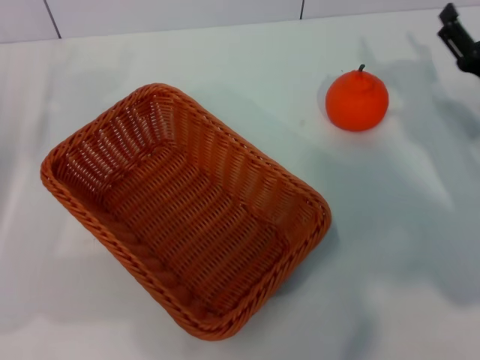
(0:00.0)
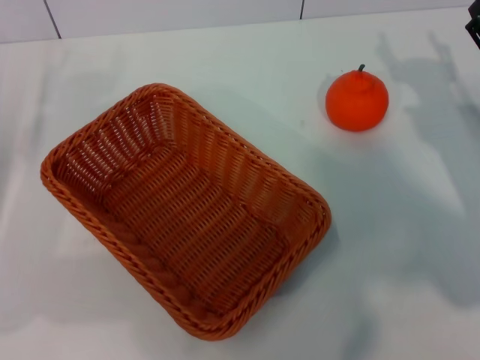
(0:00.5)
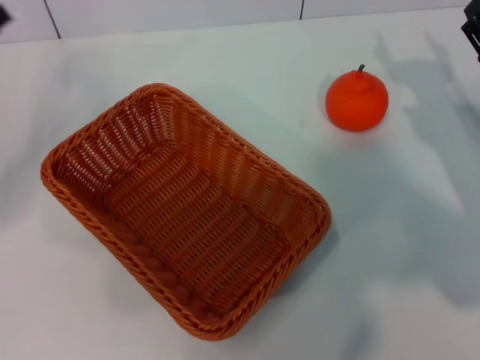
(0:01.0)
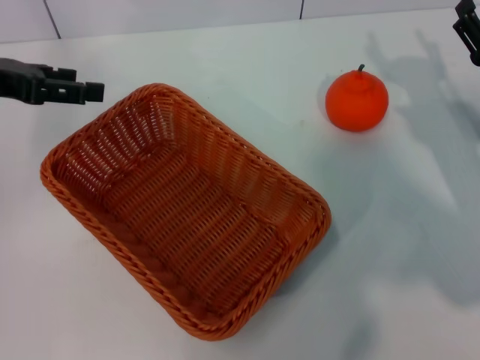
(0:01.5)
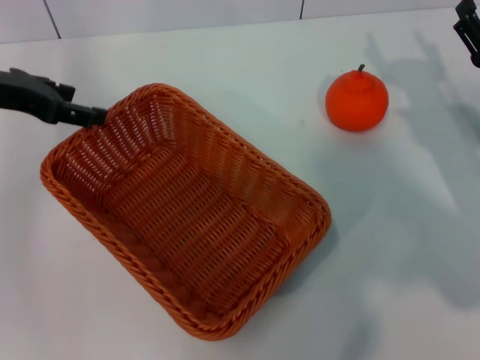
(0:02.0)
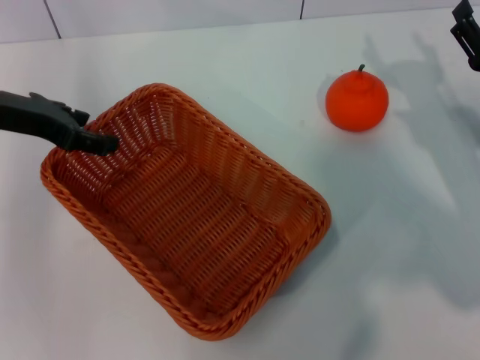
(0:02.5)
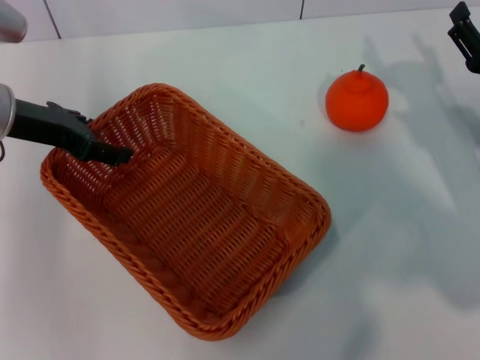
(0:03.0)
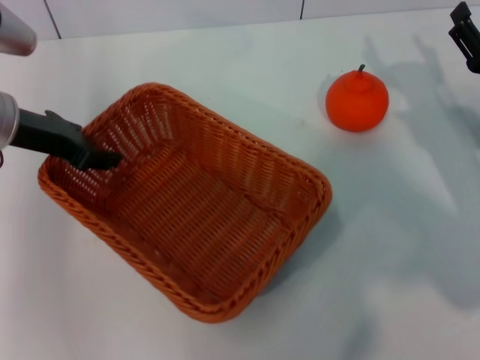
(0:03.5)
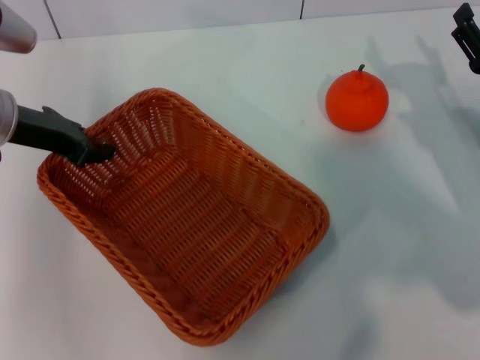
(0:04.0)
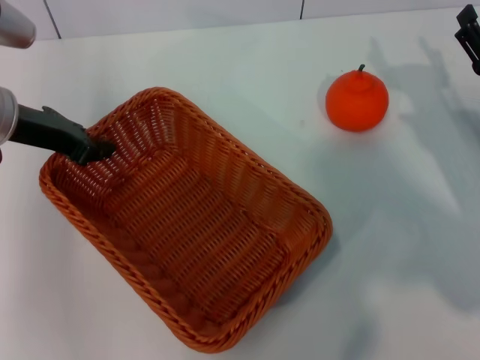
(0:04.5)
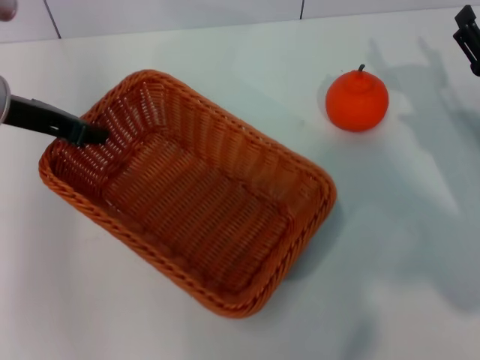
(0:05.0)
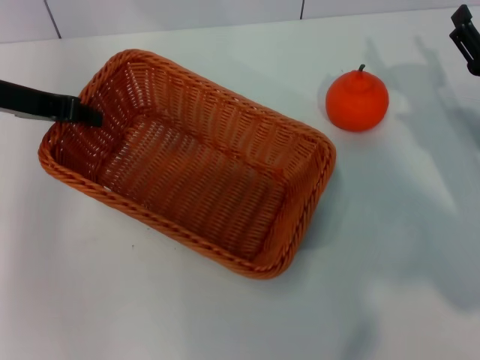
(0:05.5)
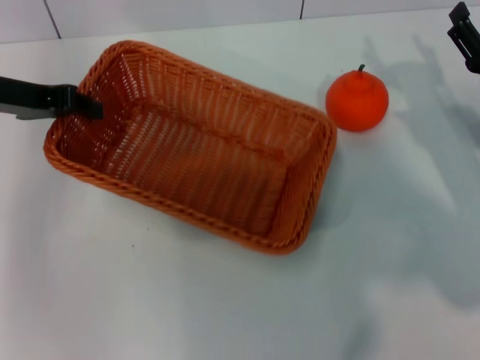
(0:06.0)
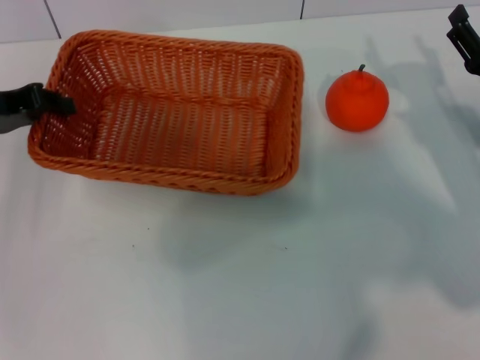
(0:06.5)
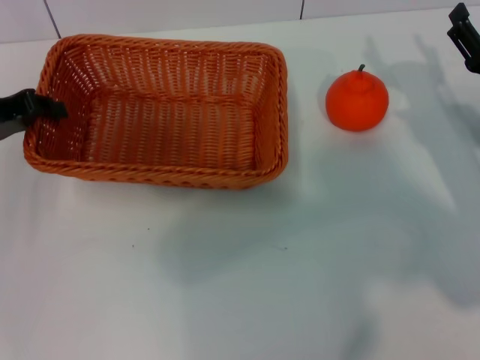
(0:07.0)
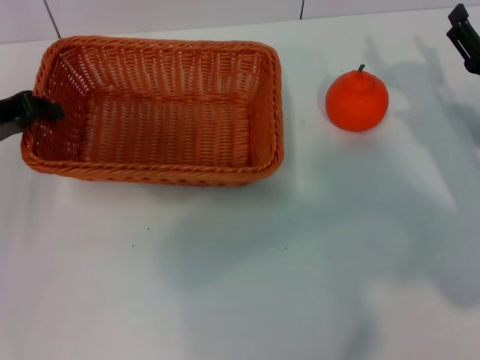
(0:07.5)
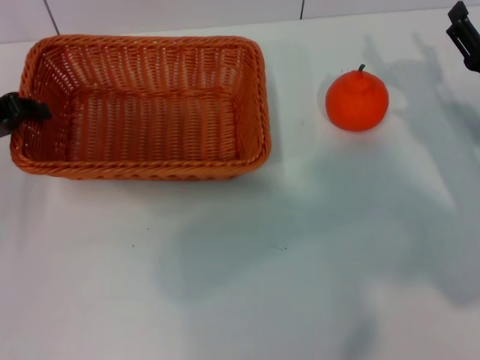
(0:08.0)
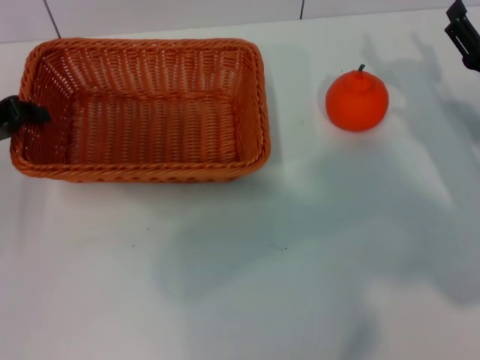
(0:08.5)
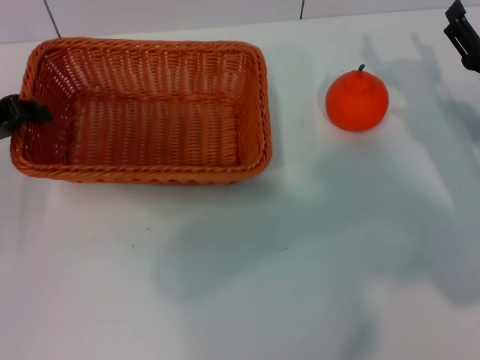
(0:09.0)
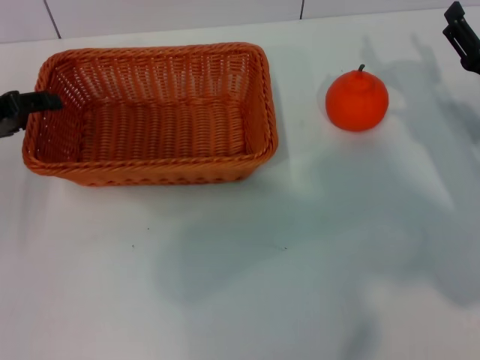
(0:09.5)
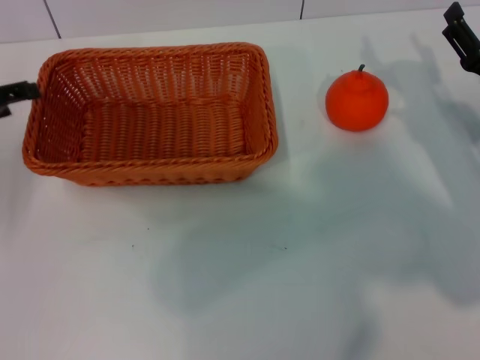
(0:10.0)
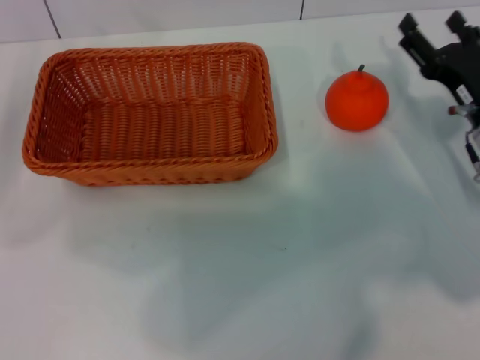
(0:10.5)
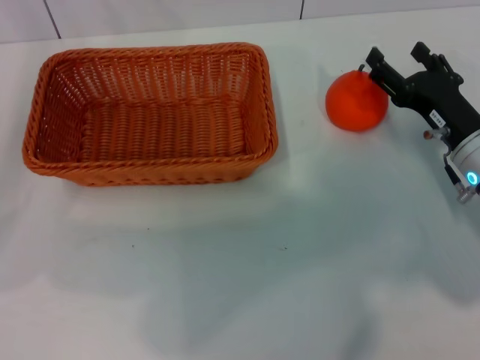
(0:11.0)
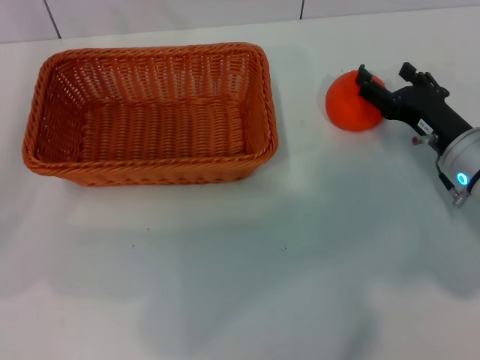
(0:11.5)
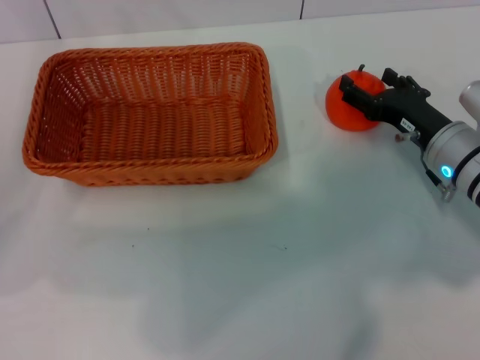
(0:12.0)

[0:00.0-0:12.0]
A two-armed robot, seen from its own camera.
Task of the whole recording: the left gripper pick up the yellow basket and place it horizontally in the middle of the table, the right gripper pick up the orange and place it into the yellow basket.
Step, 0:00.0 to 0:04.5: Pick up the light basket with the left gripper.
Step, 0:05.0 to 0:09.5: Place the light basket in the center of view with the left gripper.
0:00.0 to 0:02.0: The left gripper shifts about 15 cm upward, forward and to the right.
0:02.0 to 0:04.0: The left gripper closes up.
0:06.0 to 0:08.0: The left gripper shifts by roughly 5 cm.
0:08.0 to 0:10.0: The left gripper opens up.
0:10.0 to 0:12.0: The right gripper ends up approximately 5 cm from where it was.

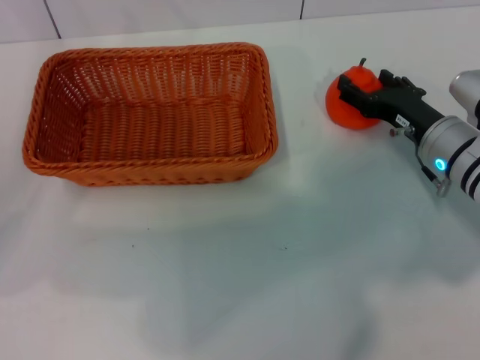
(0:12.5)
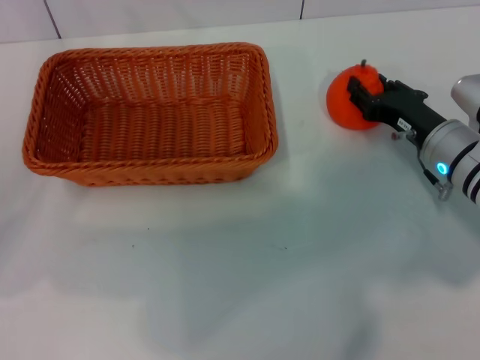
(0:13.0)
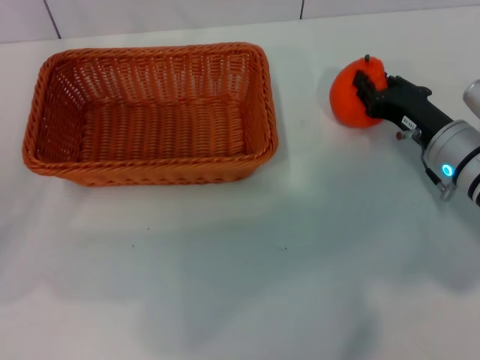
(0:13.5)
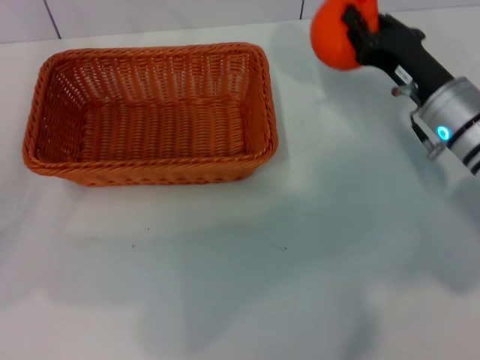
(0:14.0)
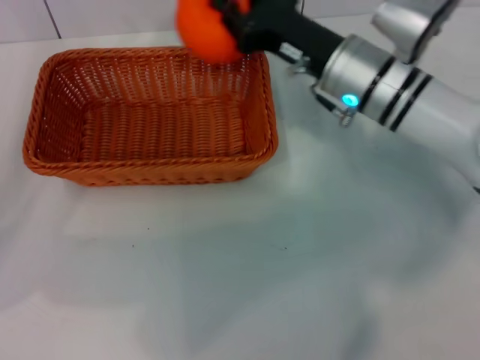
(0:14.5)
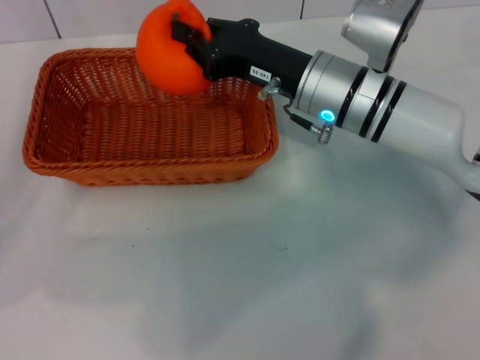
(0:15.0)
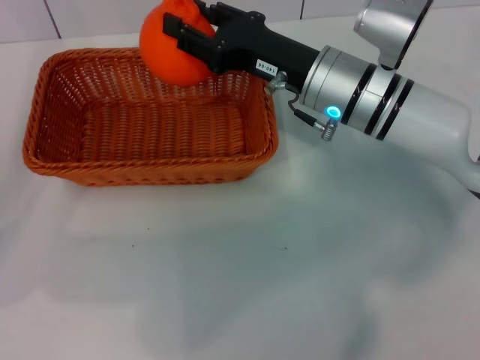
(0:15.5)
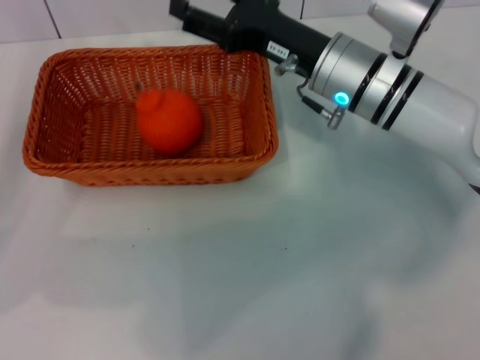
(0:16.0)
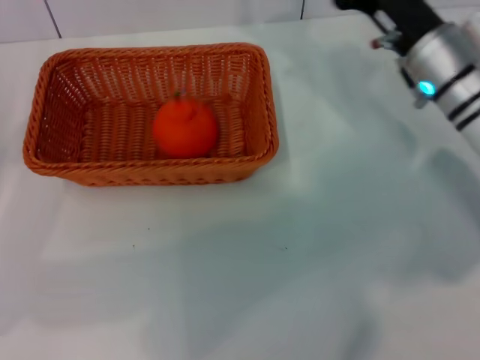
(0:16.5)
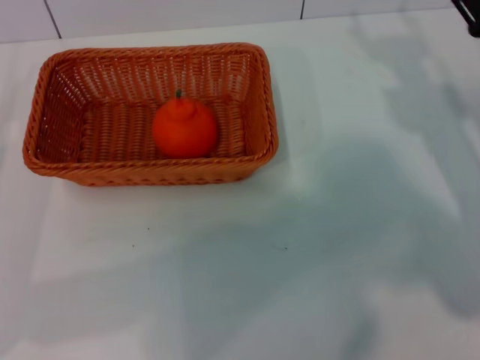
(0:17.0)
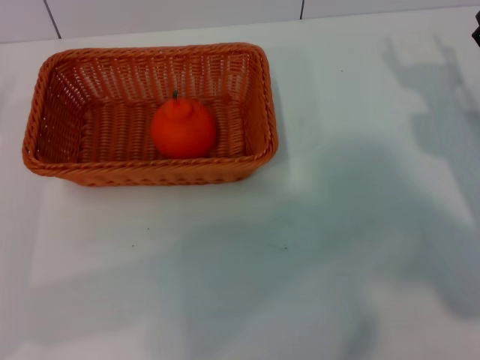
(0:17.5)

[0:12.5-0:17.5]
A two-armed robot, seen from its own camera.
Task of the whole recording: the left gripper pick up the yellow basket and place it horizontally in the middle of the table, the right gripper pick up the orange and place it into the yellow basket.
Step, 0:14.0 to 0:15.5: Place the orange into the light basket with the right gripper.
0:12.5 to 0:15.0: The right gripper shifts about 15 cm to the left and upward, and closes up.
0:15.0 to 0:17.5: The left gripper travels downward by some 5 cm. The right gripper moves to the right, some 20 cm, and opens its fingers.

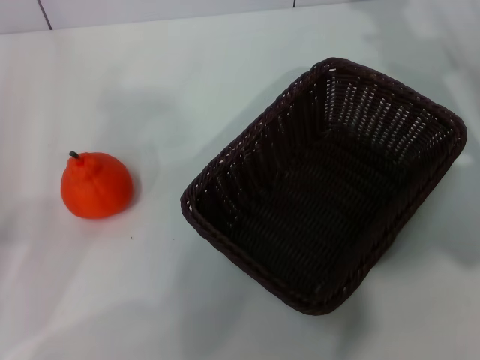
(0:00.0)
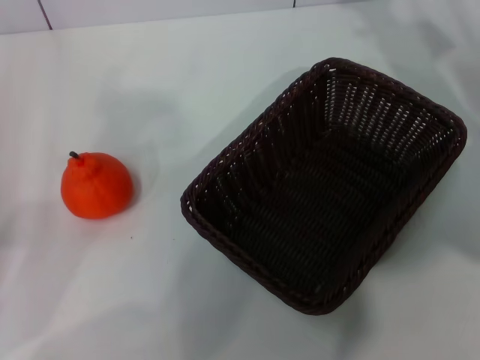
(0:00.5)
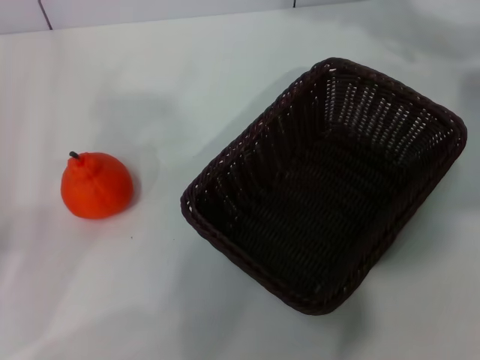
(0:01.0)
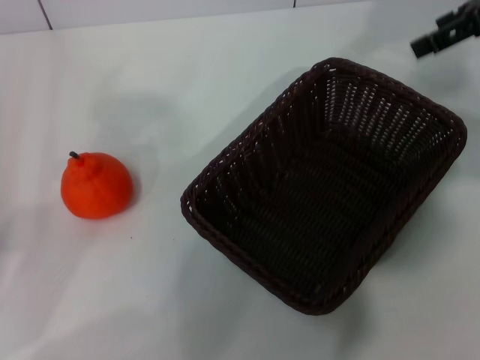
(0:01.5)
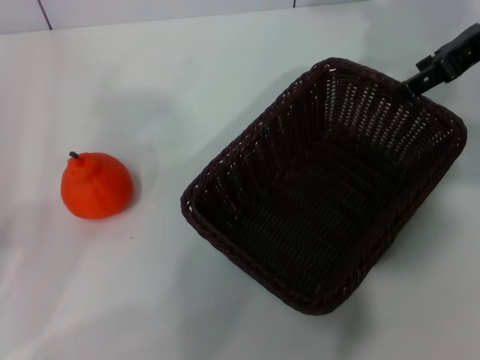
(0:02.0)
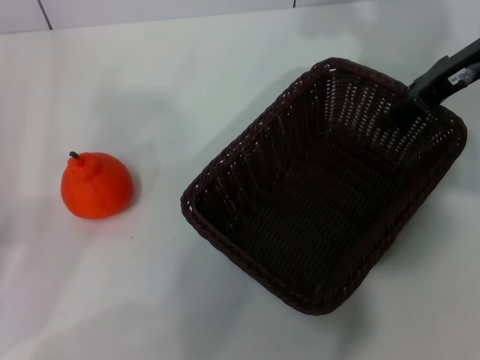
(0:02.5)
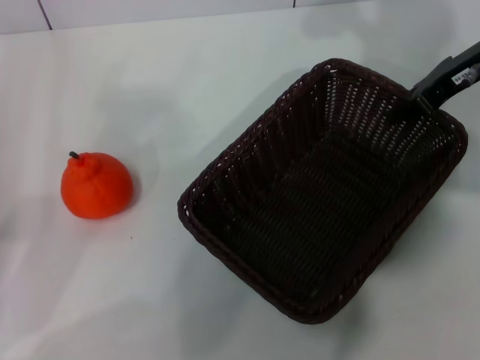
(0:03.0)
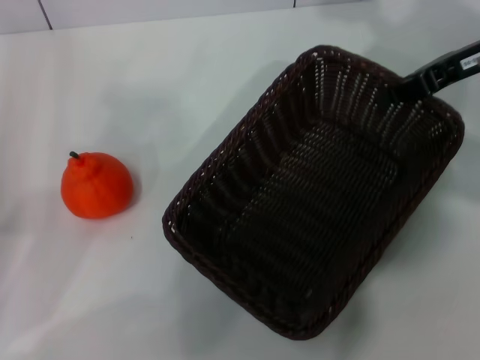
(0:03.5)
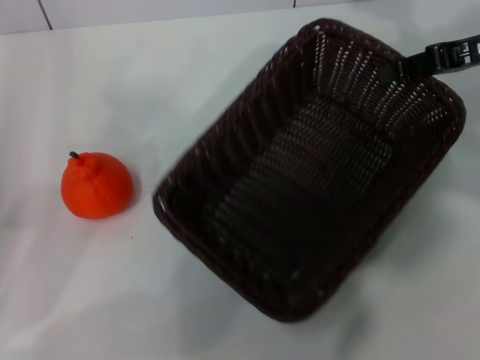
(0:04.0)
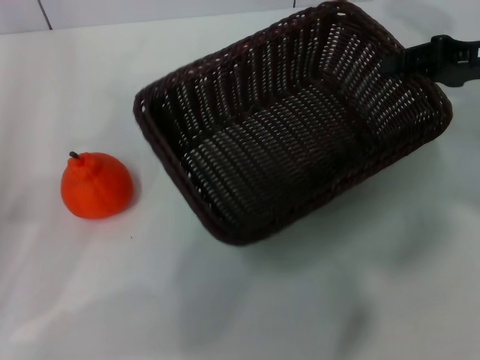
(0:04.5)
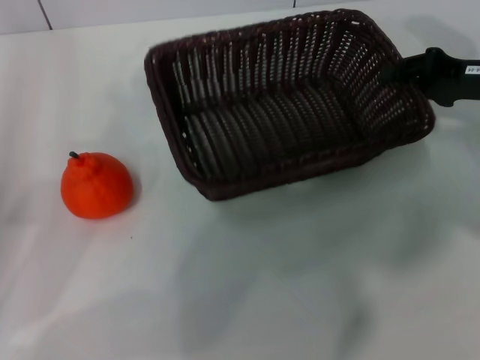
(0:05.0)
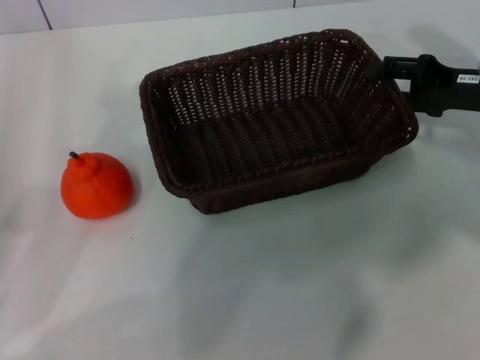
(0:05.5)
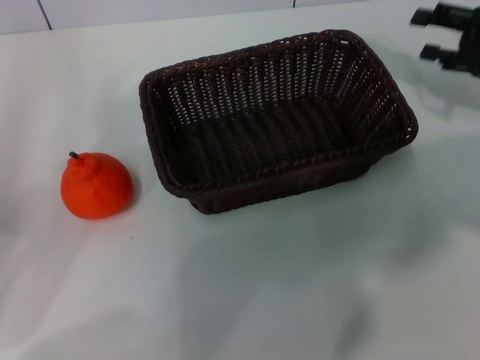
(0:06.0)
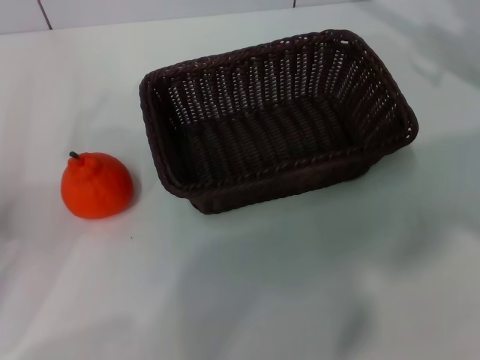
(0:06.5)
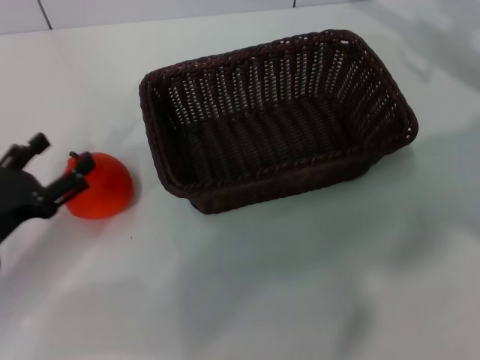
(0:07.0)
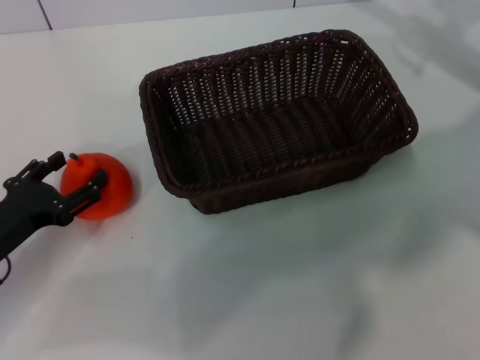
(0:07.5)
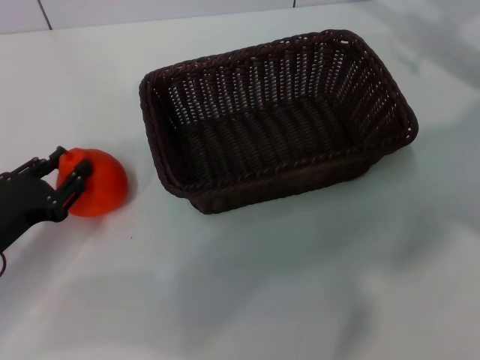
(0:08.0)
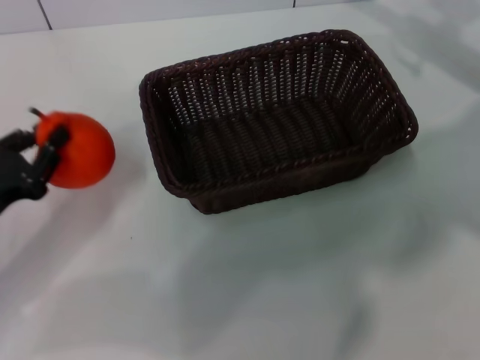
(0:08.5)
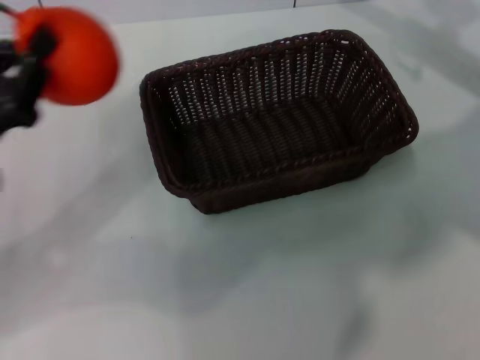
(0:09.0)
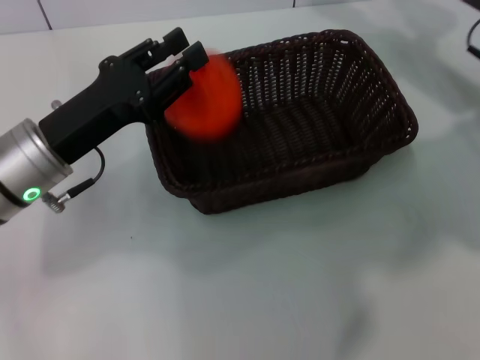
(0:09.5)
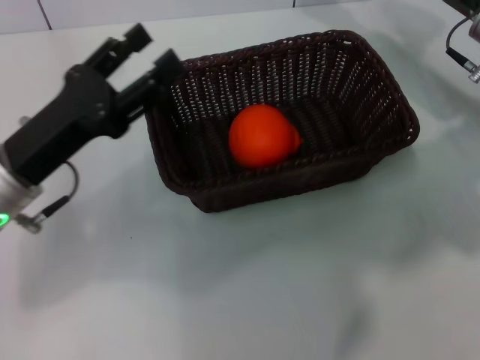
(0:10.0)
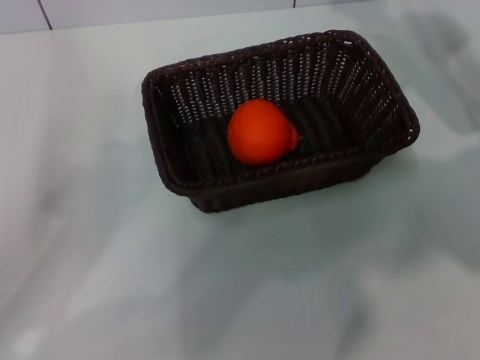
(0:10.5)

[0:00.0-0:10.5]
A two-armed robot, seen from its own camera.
Task of the whole recording: the right gripper pick up the black basket and place it horizontally in the middle of the table, the left gripper pick up the orange and place it into the black basket.
Step, 0:00.0 to 0:03.0: Pick up the dark basket with the right gripper.
Step, 0:03.5 to 0:05.5: Place the dark basket in the center of view with the right gripper.
Step, 0:06.0 to 0:08.0: Pick up the orange with the left gripper.
Step, 0:08.5 to 0:09.5: Place the orange into the dark basket with the left gripper.
0:00.0 to 0:02.0: The right gripper goes roughly 10 cm upward.
0:02.0 to 0:04.0: The right gripper changes place by about 5 cm, and closes up.
0:04.0 to 0:06.5: The right gripper reaches some 10 cm downward, then returns, and opens its fingers.
0:06.5 to 0:08.5: The left gripper ends up about 5 cm from where it was, and closes.
0:08.5 to 0:10.5: The left gripper goes to the right and returns, roughly 10 cm each way, and opens, while the right gripper changes place by approximately 5 cm.
